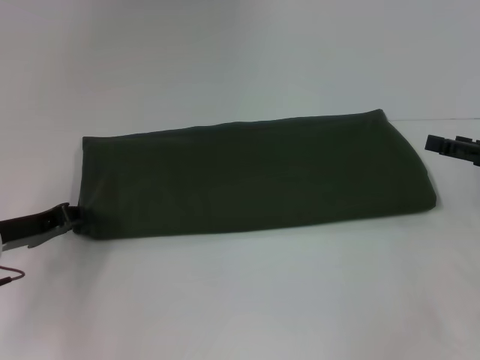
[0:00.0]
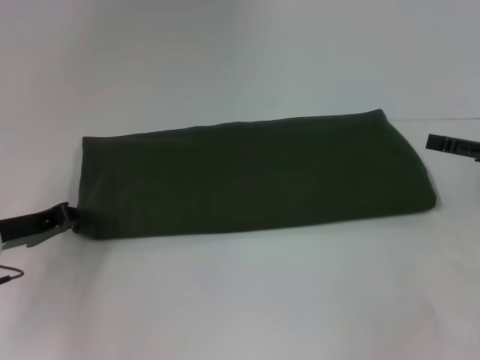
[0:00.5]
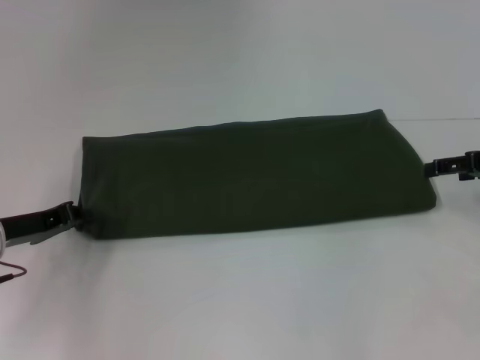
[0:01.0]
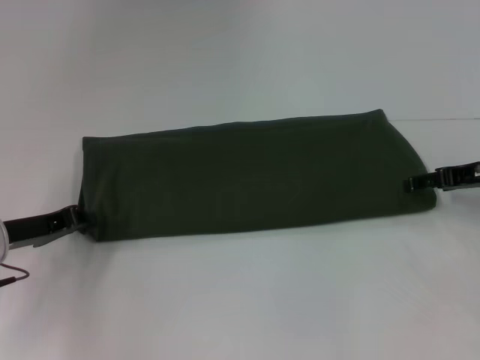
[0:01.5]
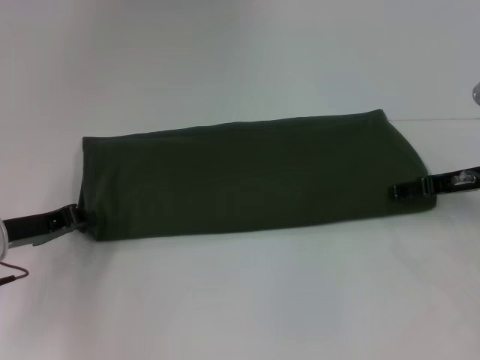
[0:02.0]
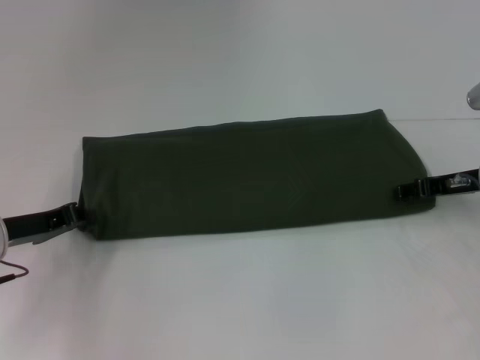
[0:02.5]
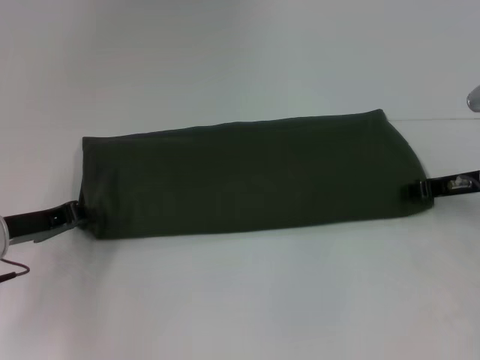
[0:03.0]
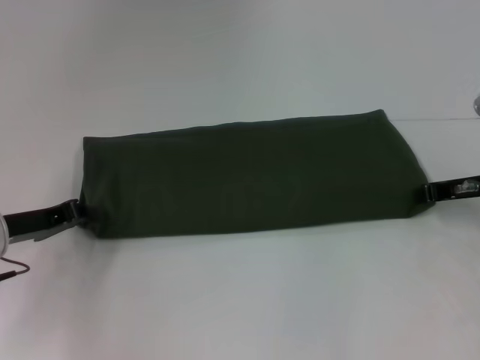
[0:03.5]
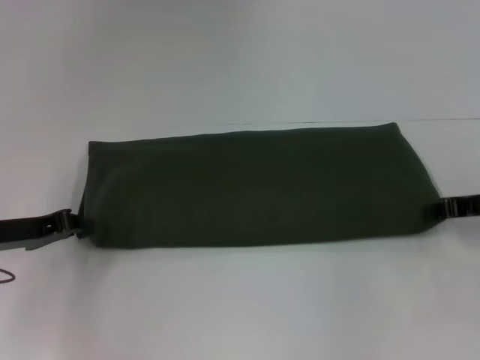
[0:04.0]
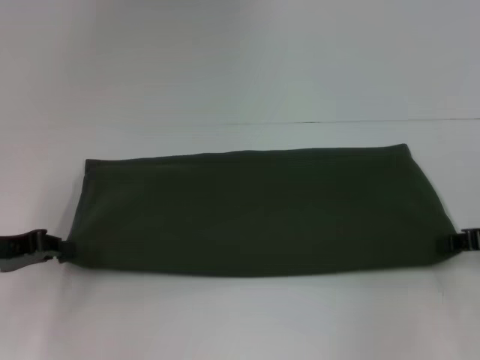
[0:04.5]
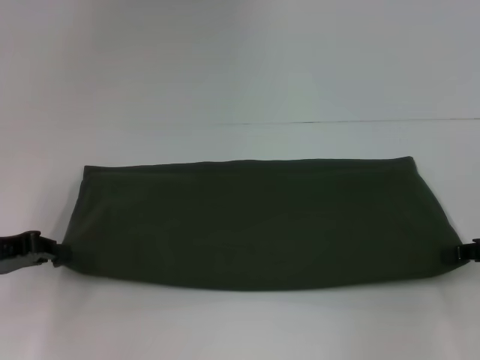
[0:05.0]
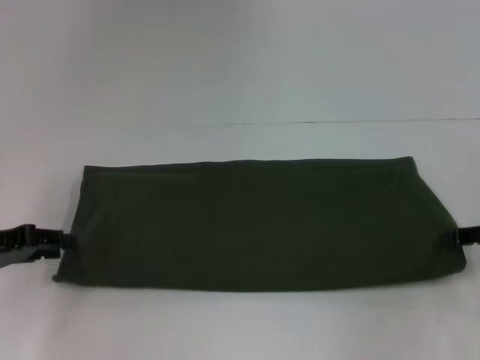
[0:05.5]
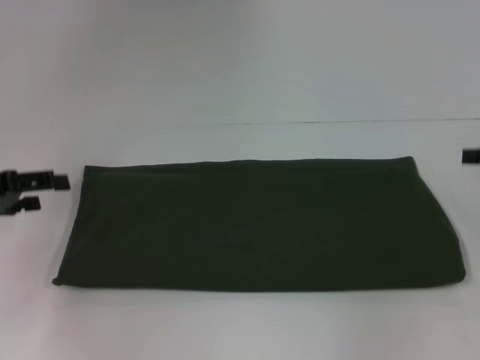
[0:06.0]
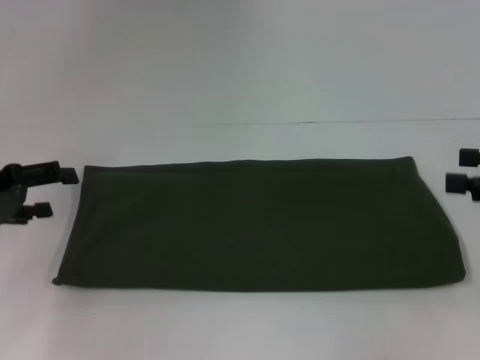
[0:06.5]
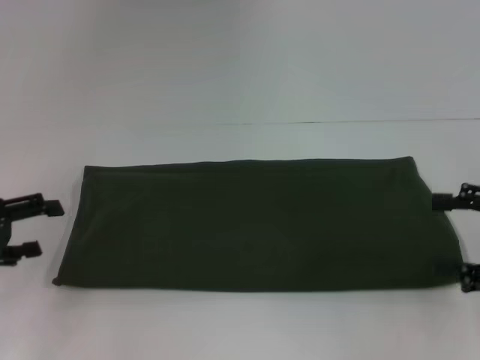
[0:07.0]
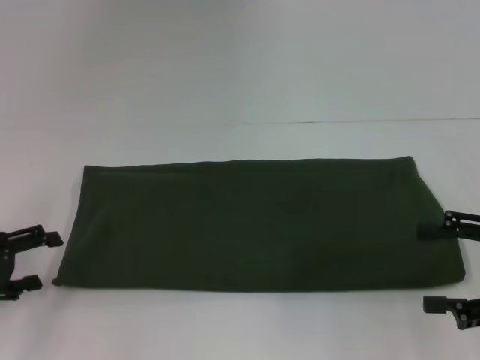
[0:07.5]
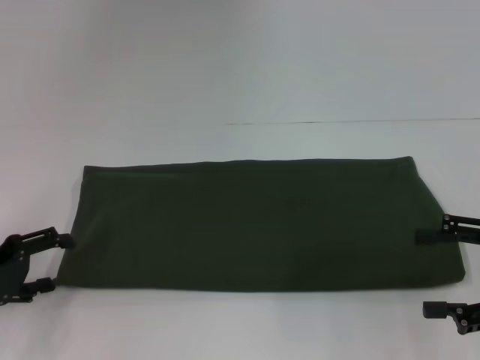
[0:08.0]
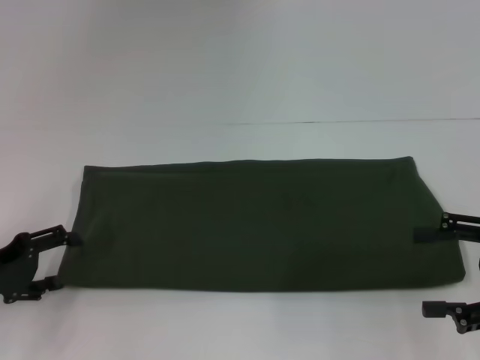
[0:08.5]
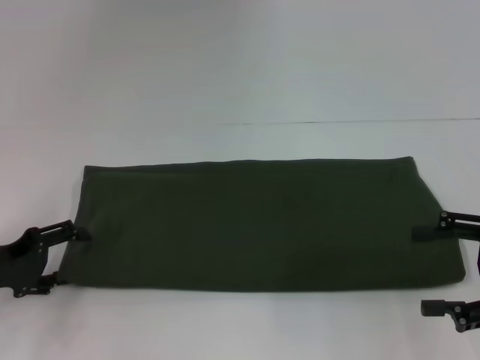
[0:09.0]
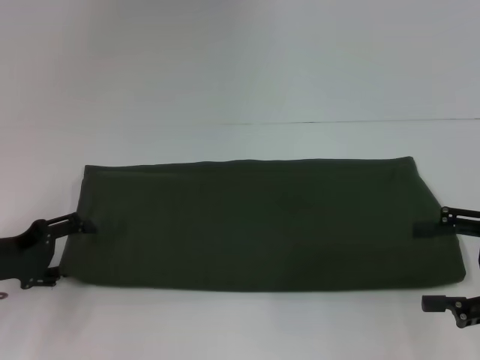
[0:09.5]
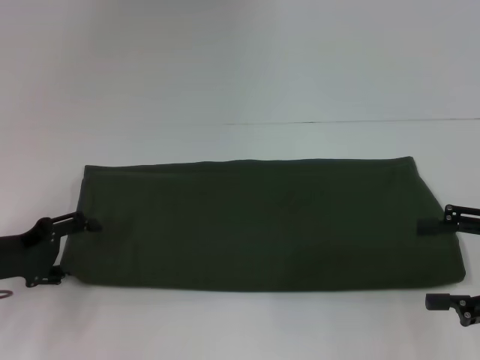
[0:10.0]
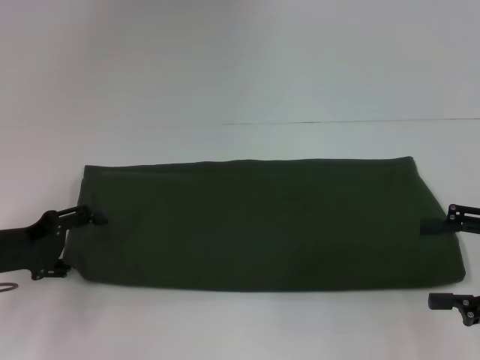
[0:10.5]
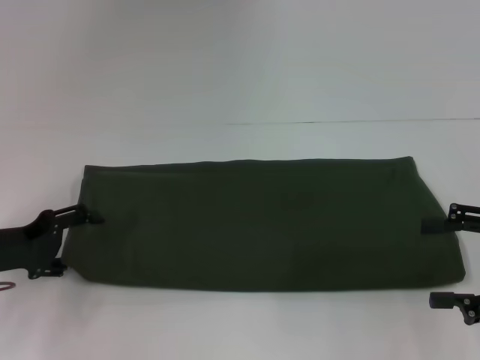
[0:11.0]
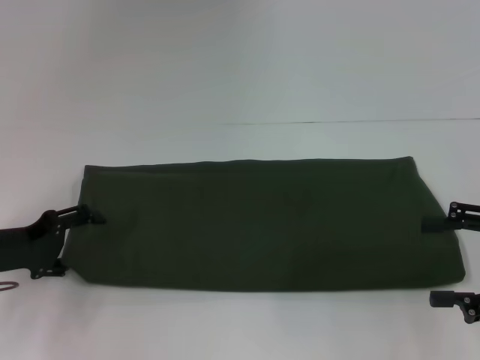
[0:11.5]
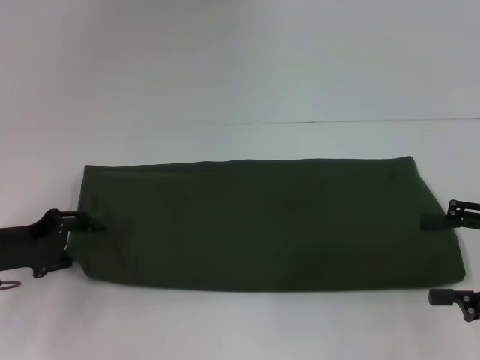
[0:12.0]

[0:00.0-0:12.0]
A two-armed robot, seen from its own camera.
Step, 0:00.0 to 0:05.5: Pull the clothes with your left hand.
Step, 0:00.0 to 0:05.5: Pull the clothes with your right hand.
0:00.0 to 0:02.0: The right gripper is displaced to the left and forward by some 10 cm.
0:02.0 to 0:04.0: The right gripper closes.
0:04.0 to 0:06.0: The left gripper moves upward, about 5 cm, and opens, while the right gripper goes approximately 10 cm upward and to the right, and opens.
0:06.0 to 0:08.0: The right gripper is displaced backward by about 10 cm. Meanwhile the left gripper travels downward by some 5 cm.
0:08.0 to 0:10.0: The grippers make only small movements.
0:10.0 to 0:12.0: Neither gripper changes place.

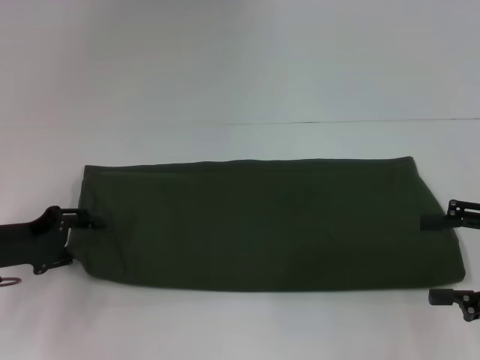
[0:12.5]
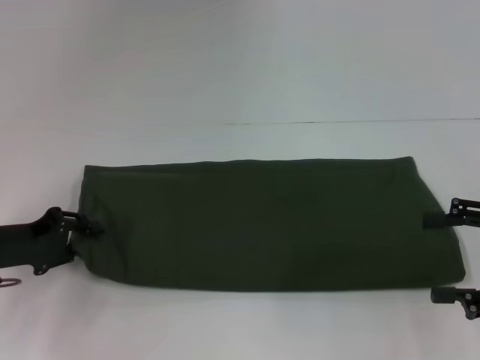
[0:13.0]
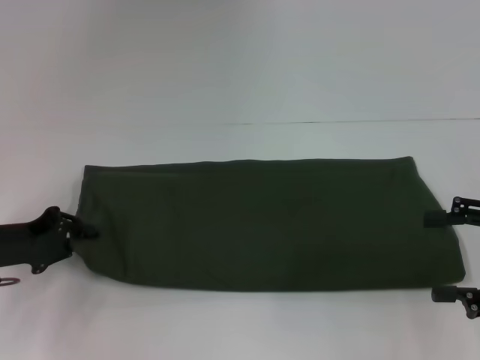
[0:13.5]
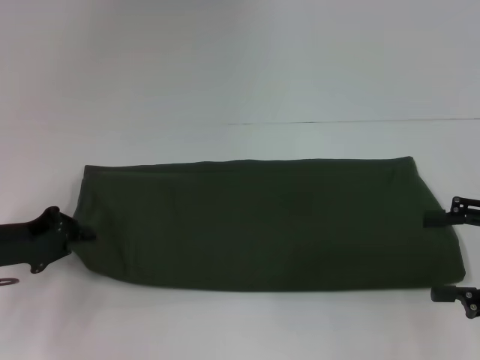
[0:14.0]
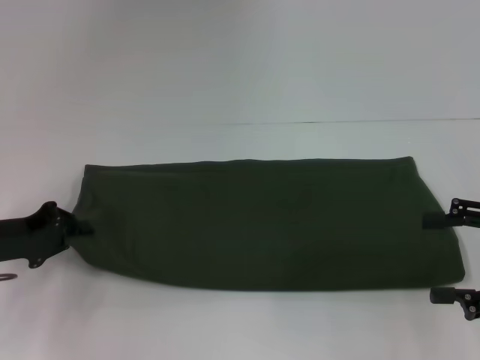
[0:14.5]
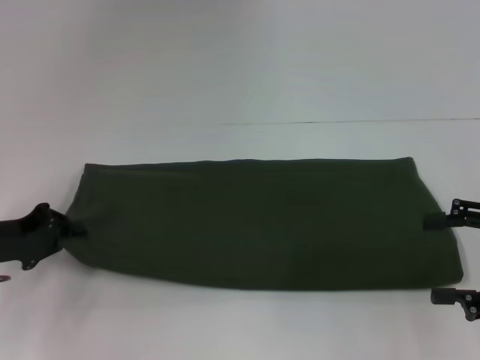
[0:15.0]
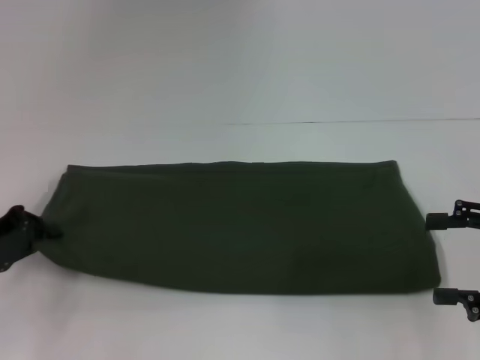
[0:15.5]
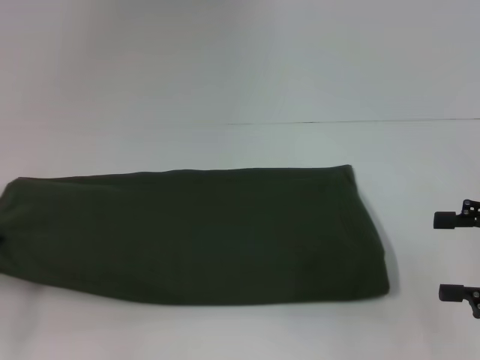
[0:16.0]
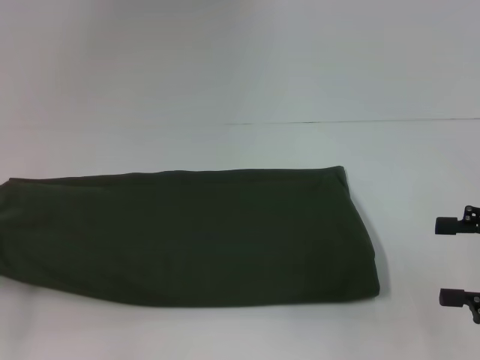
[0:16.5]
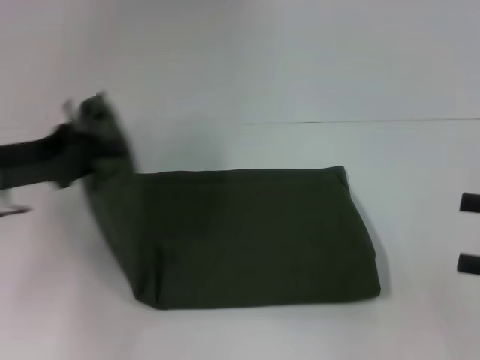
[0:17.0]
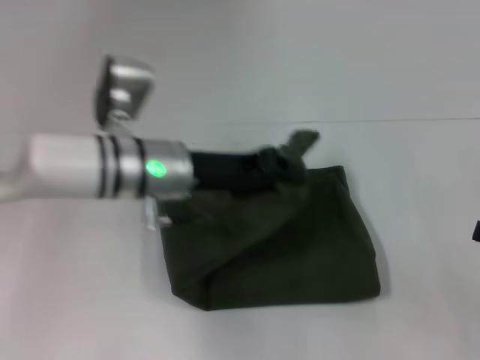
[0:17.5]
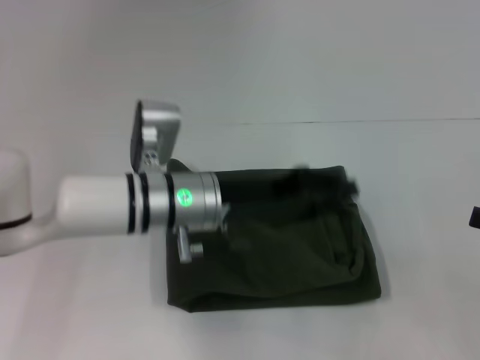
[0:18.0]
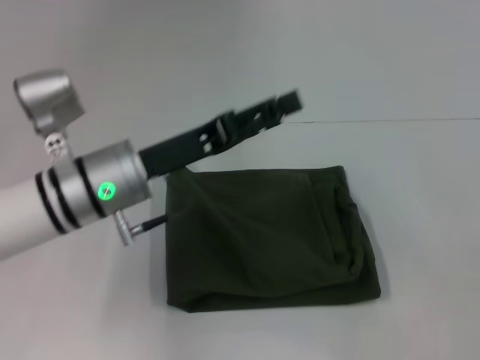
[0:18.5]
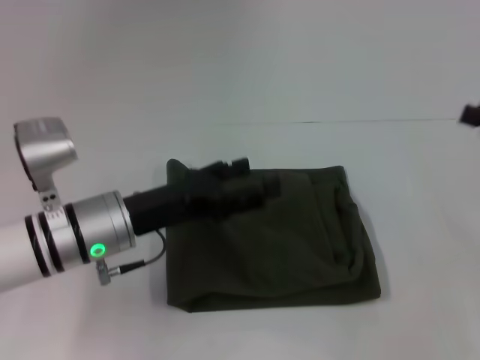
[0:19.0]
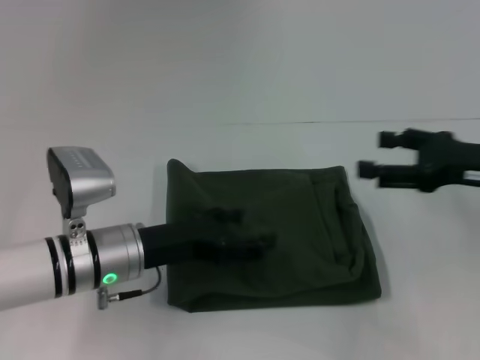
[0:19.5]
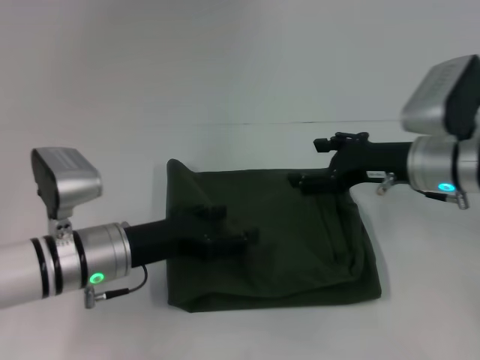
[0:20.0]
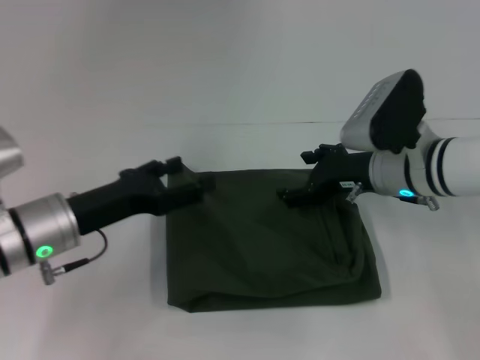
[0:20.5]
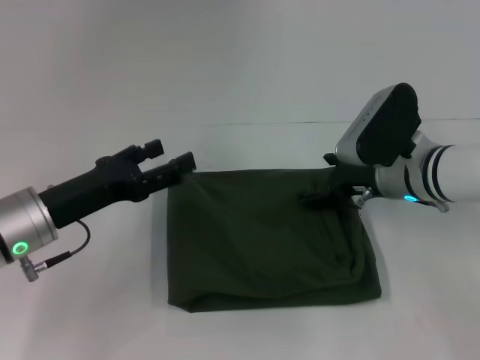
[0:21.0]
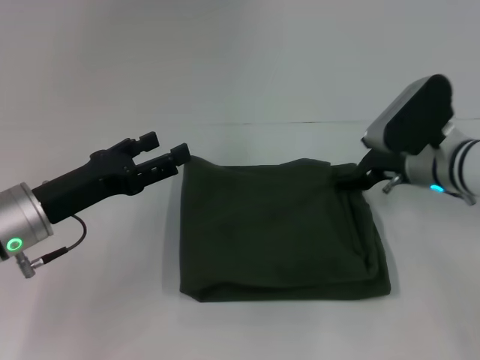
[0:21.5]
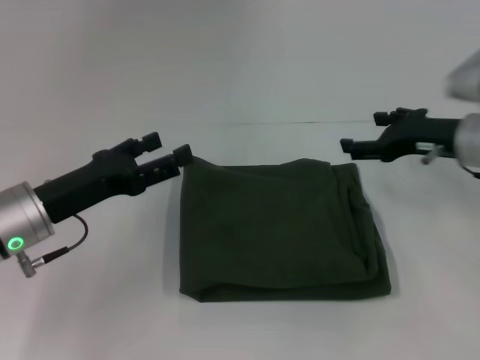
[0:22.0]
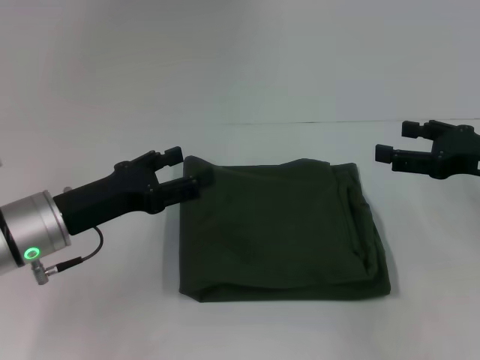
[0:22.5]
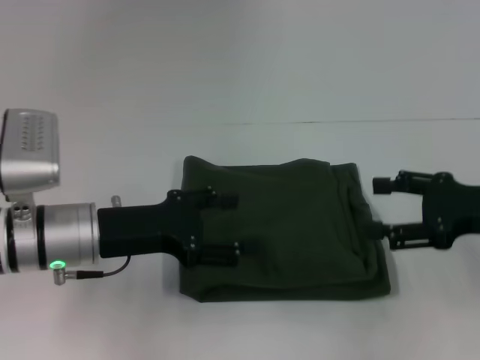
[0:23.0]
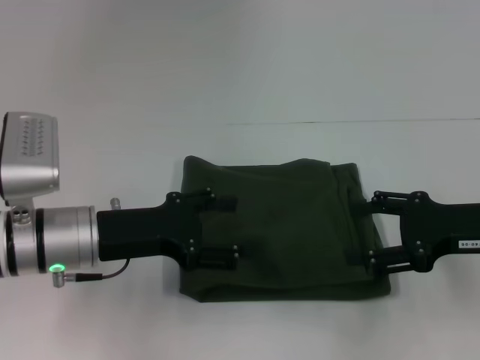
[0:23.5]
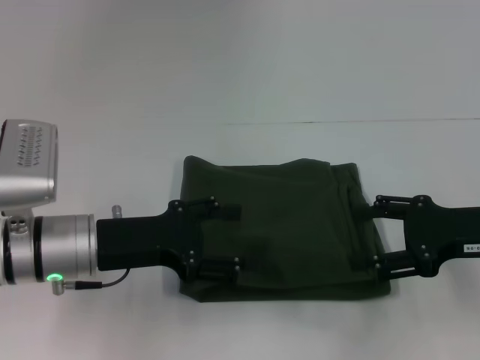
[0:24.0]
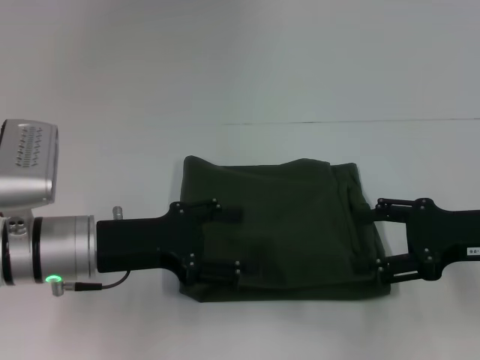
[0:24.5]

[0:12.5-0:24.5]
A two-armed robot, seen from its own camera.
Step, 0:12.5 to 0:17.5: Fold the clothes with your left hand.
0:12.5 to 0:14.5: The left gripper closes up.
0:14.5 to 0:16.5: The left gripper heads to the left, covering about 10 cm.
0:16.5 to 0:18.5: The left gripper heads to the right, covering approximately 25 cm, and opens.
0:18.5 to 0:20.5: The left gripper shifts some 5 cm to the left. Meanwhile the right gripper is displaced to the left and forward by approximately 25 cm.
0:20.5 to 0:22.5: The right gripper shifts roughly 15 cm to the right.
